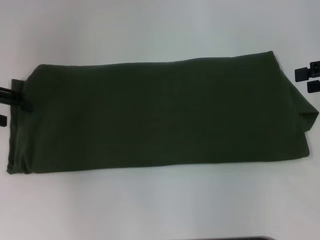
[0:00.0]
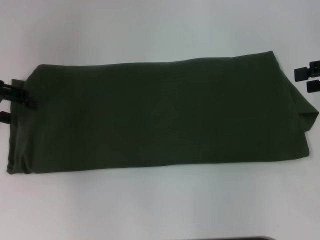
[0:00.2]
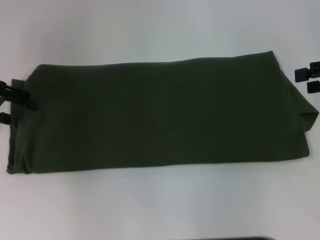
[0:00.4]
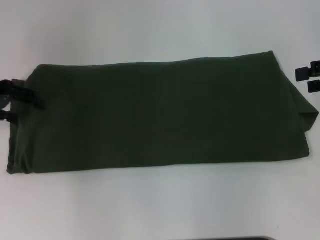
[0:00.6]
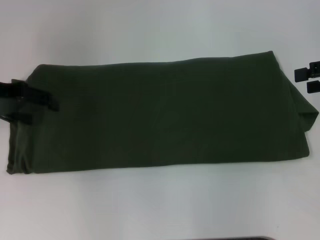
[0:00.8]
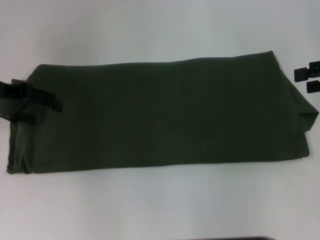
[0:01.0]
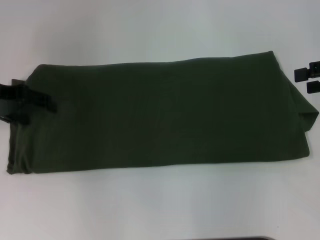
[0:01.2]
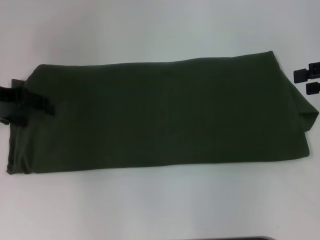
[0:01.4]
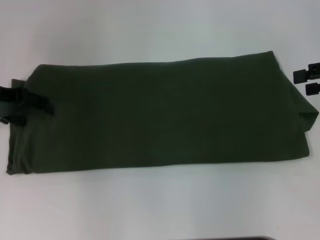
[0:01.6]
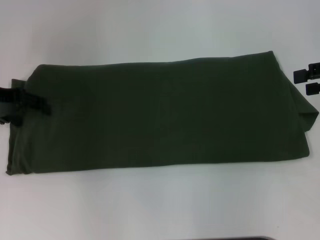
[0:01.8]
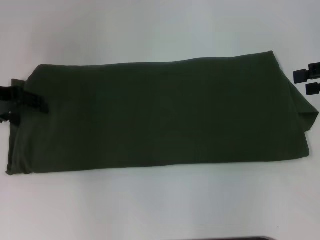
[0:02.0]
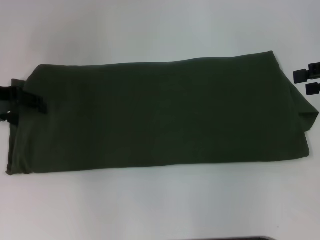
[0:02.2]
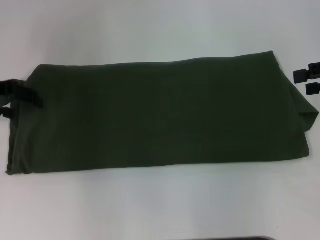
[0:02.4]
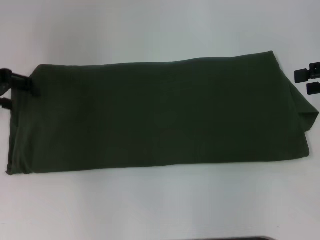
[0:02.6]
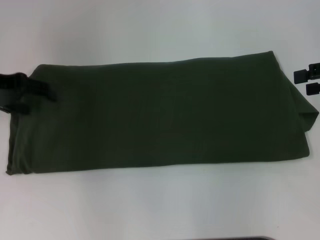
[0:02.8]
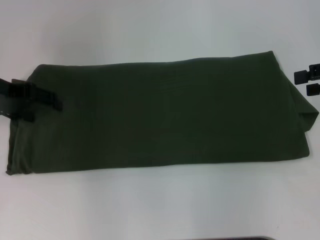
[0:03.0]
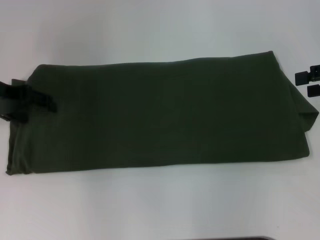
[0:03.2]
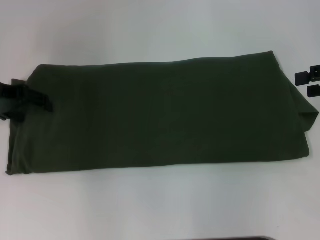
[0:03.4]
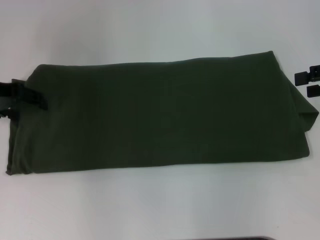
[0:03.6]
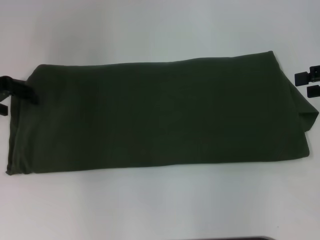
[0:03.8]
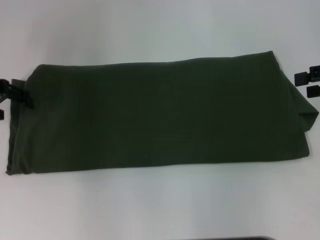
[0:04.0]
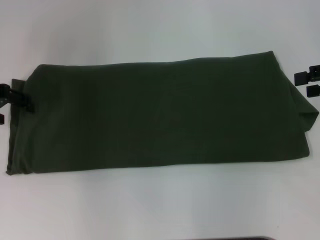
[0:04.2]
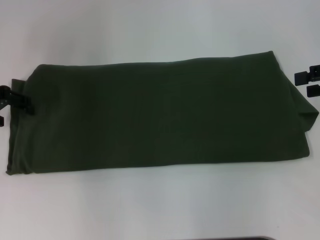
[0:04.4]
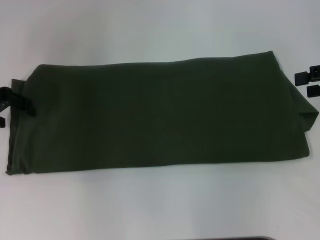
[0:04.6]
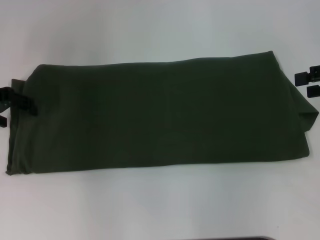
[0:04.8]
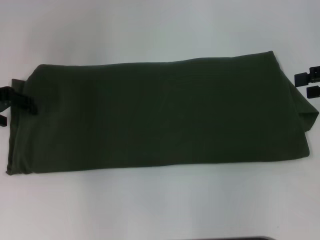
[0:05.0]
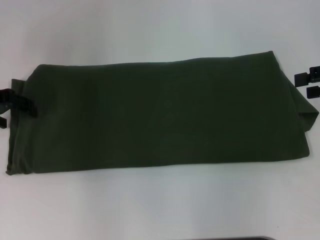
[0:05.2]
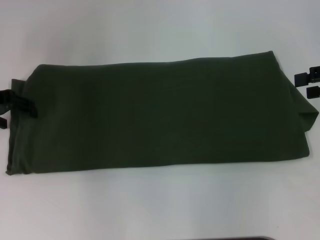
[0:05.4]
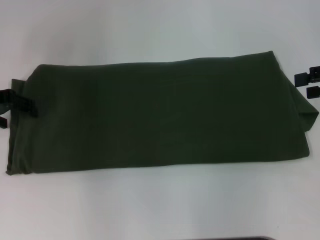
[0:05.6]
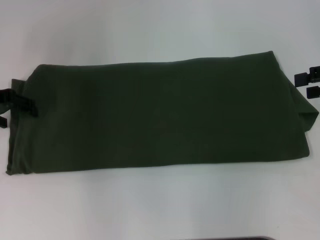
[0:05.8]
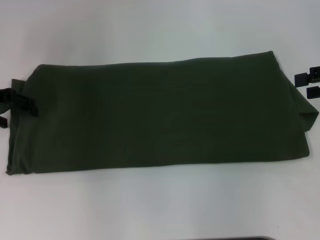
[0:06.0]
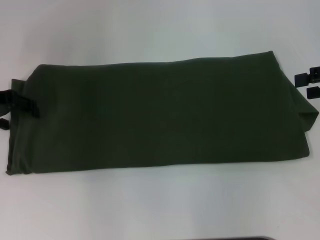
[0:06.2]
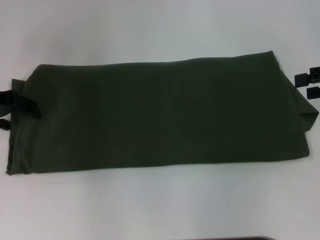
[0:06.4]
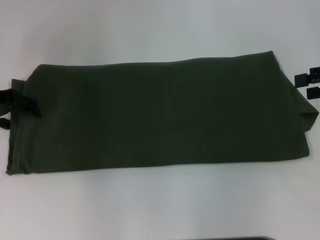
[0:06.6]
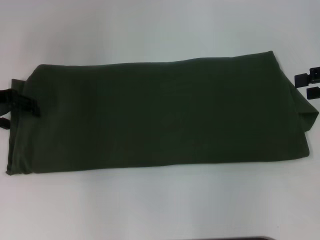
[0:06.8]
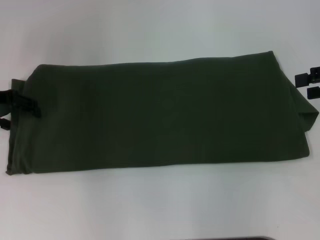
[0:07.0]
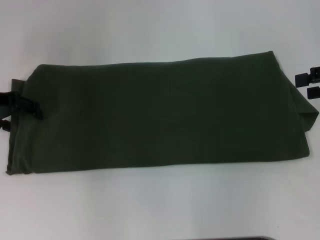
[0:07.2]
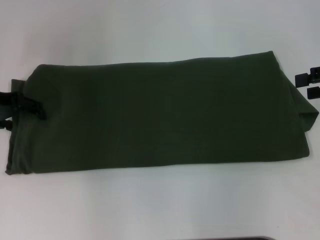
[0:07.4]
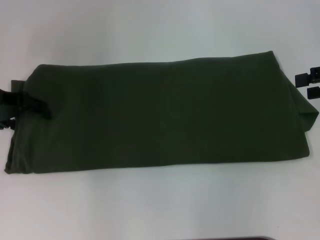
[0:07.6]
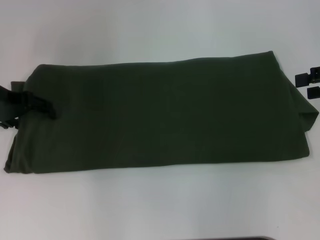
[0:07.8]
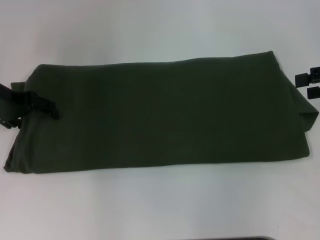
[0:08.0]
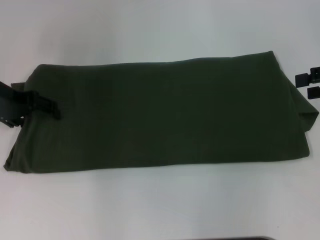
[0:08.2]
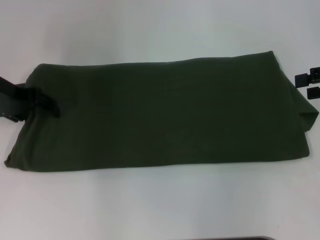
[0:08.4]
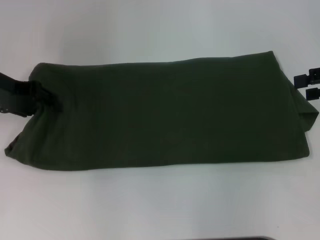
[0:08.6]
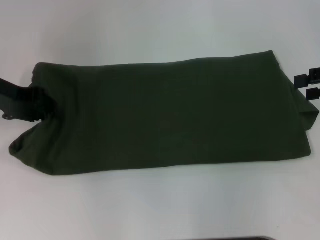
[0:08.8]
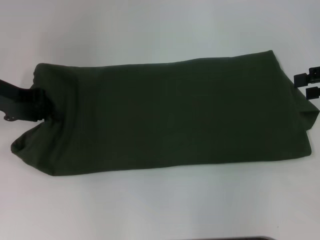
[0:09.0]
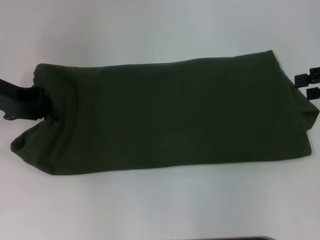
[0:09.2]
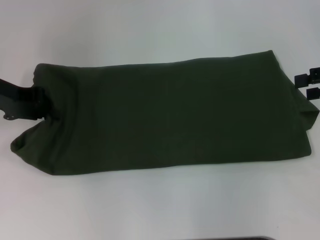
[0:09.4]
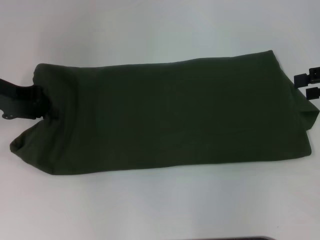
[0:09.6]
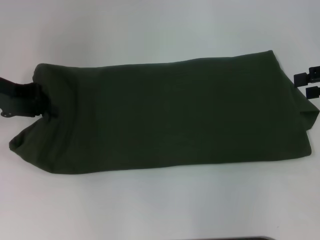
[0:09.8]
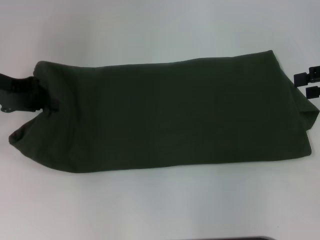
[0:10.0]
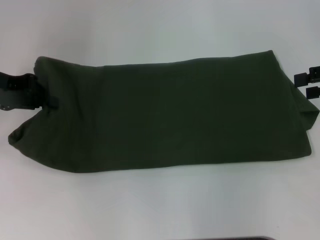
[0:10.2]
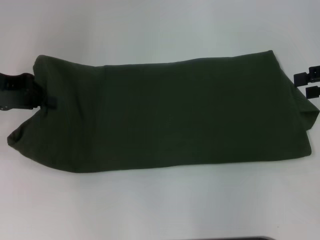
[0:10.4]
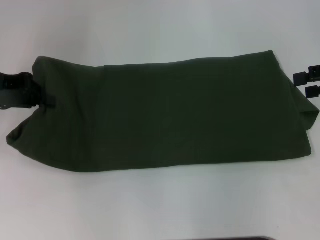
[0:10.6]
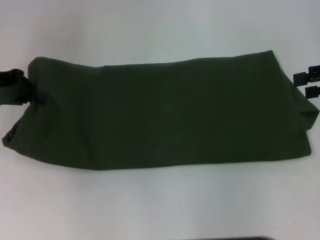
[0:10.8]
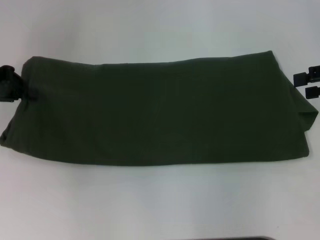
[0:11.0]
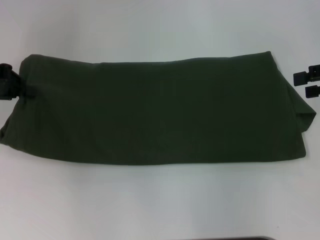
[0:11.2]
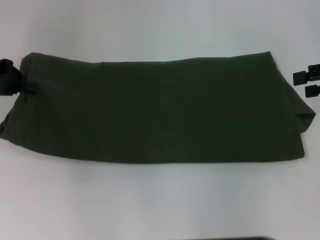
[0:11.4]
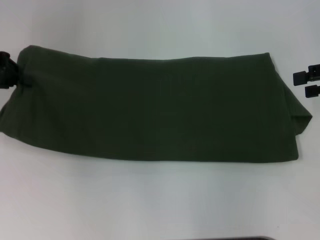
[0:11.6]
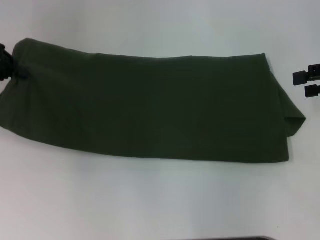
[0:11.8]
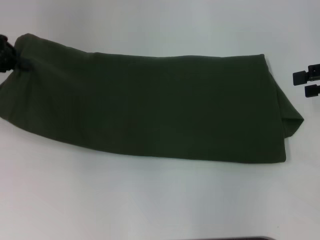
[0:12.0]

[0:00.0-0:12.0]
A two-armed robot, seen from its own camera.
0:00.0 to 0:01.6: There are only small adjustments of the grippers.
0:03.0 to 0:04.4: The grippers move only a little.
0:04.4 to 0:06.0: Both grippers stay put.
0:07.6 to 0:09.0: The left gripper closes its fingers.
0:09.0 to 0:10.4: There are only small adjustments of the grippers.
0:10.4 to 0:12.0: The left gripper changes place by some 5 cm.

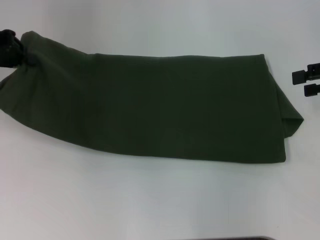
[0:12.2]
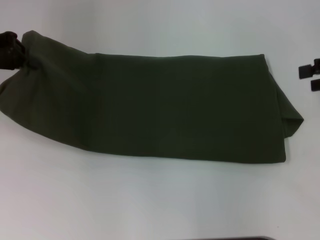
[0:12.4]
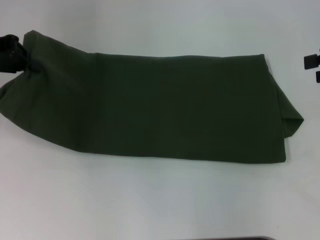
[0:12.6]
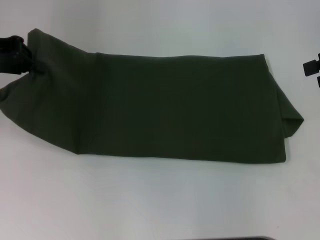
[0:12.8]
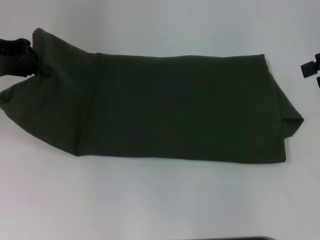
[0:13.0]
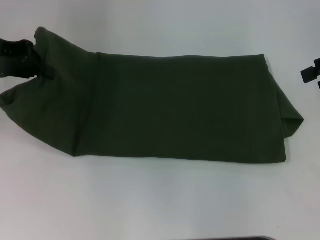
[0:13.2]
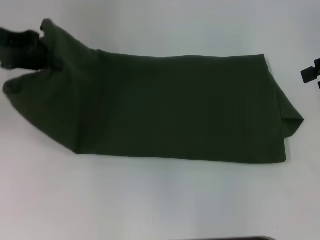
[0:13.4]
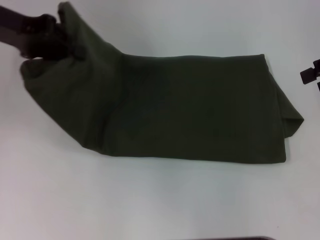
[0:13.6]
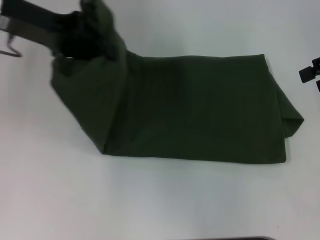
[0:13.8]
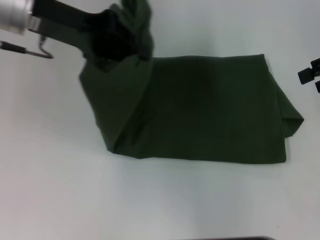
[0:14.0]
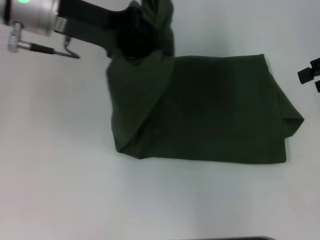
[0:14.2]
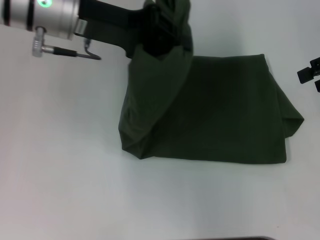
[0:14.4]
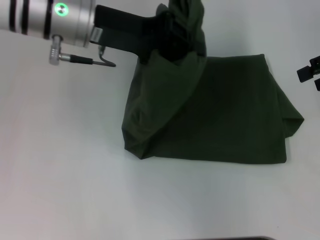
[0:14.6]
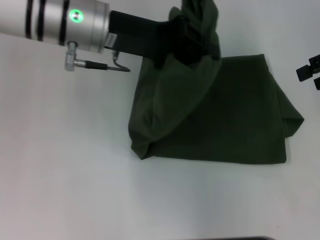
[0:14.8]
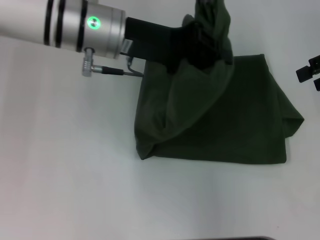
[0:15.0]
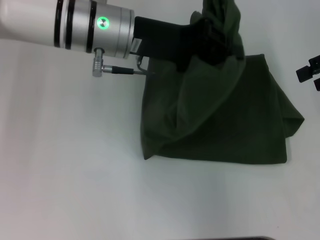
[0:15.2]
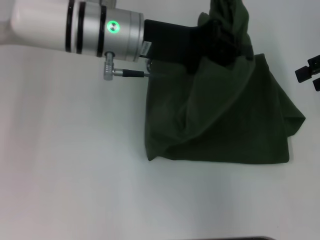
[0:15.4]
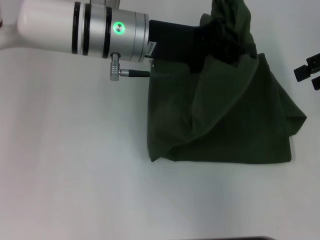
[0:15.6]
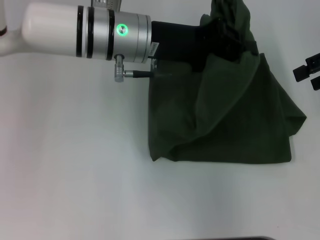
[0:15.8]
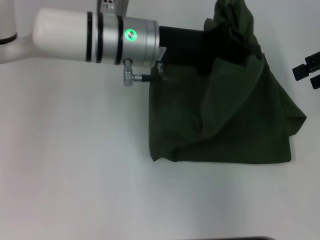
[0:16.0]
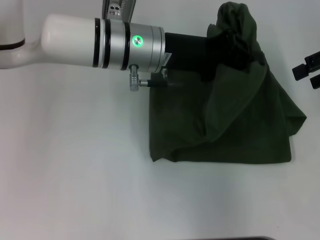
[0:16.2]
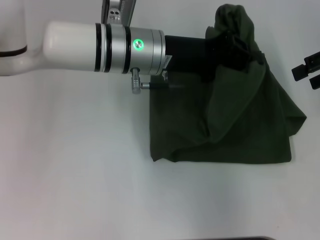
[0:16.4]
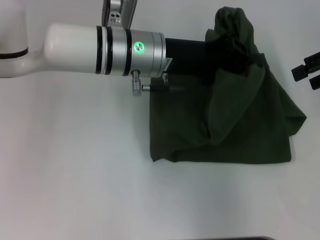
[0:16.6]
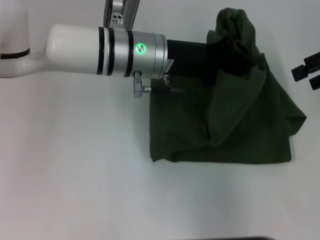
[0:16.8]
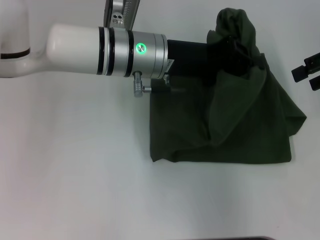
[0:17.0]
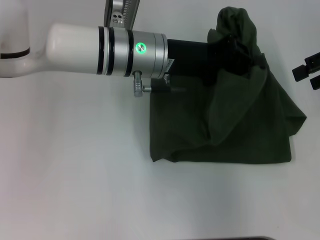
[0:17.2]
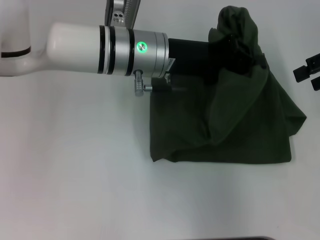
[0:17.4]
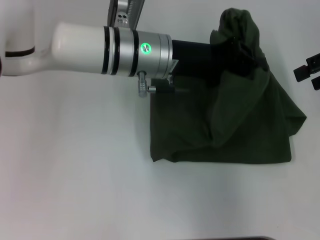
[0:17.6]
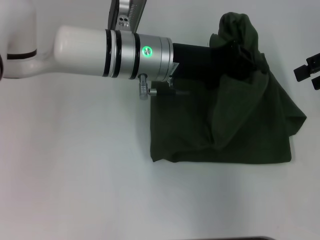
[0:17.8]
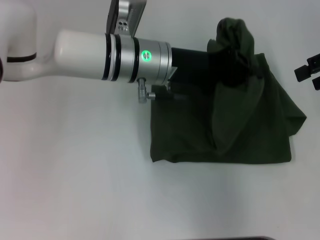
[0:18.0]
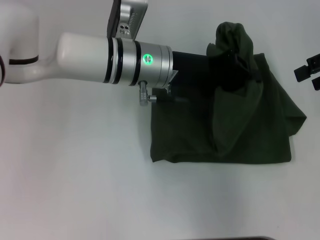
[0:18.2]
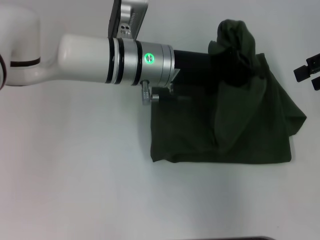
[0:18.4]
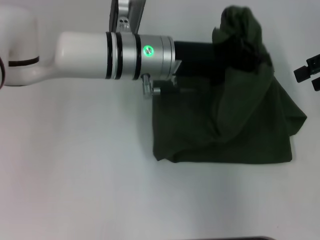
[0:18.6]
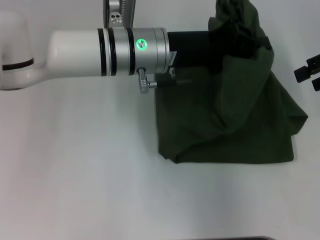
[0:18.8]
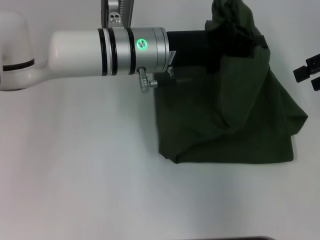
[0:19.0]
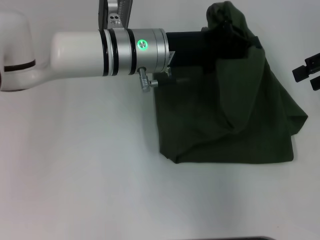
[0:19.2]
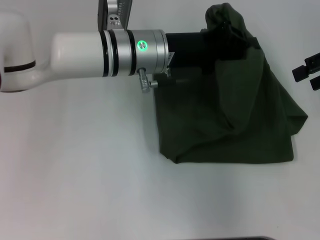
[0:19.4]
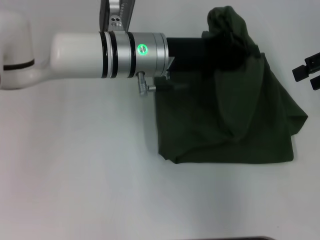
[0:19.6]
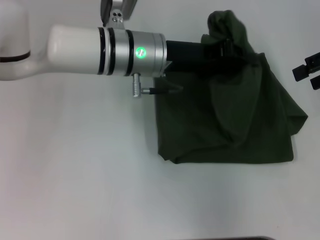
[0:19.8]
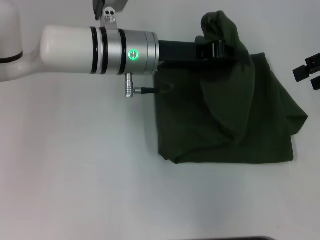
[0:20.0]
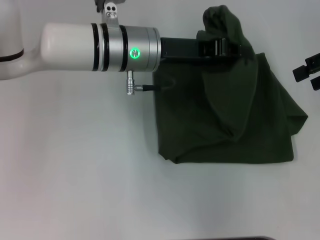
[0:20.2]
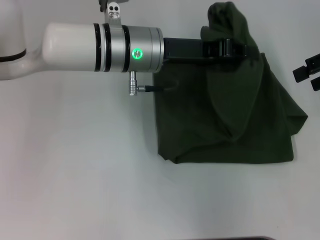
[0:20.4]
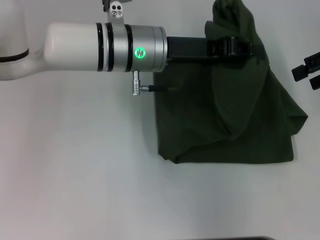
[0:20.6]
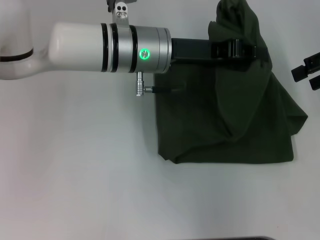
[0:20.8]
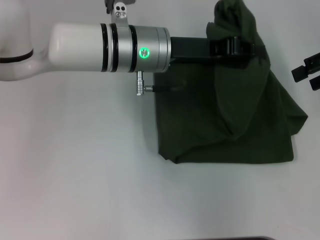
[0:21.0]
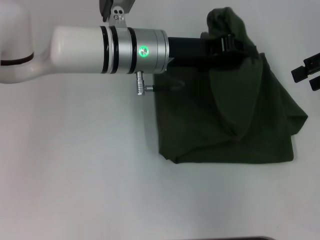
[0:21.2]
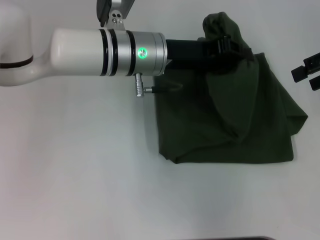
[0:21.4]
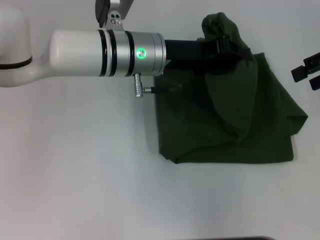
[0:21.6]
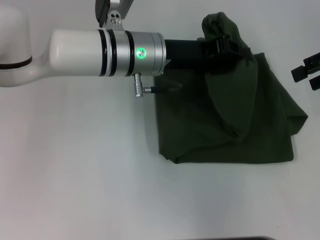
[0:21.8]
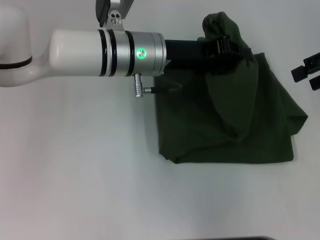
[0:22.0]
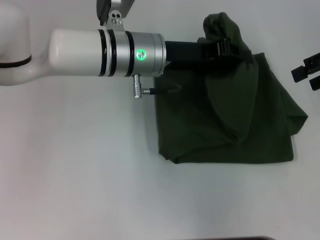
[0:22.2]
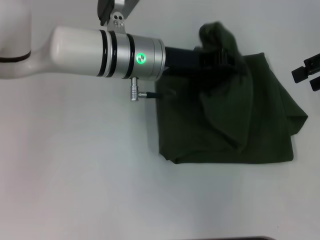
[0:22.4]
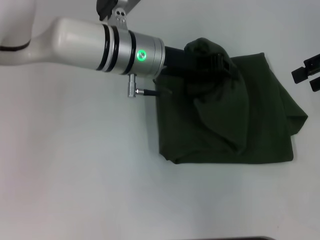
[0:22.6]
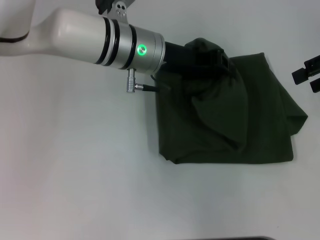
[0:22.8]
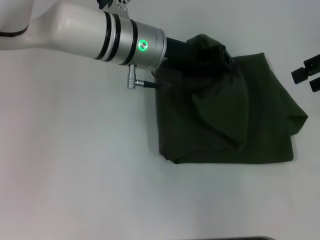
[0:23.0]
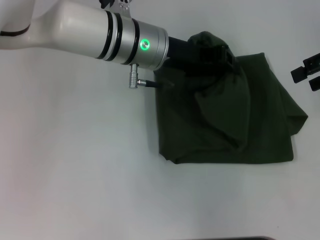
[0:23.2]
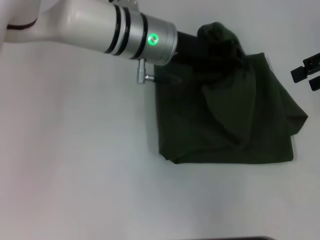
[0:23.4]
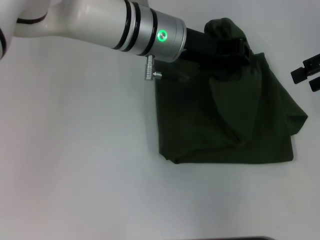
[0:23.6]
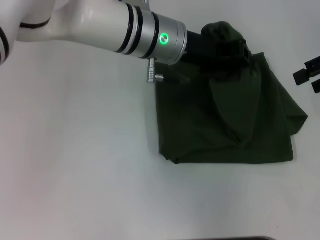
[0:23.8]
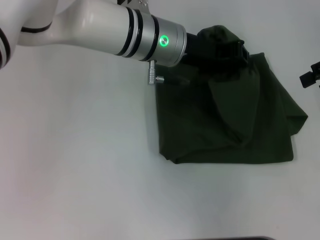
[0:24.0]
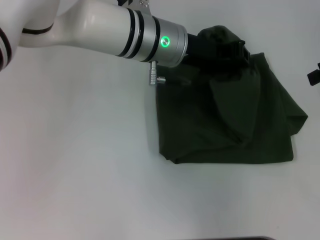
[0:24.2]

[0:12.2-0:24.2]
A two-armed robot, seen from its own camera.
0:12.2 to 0:13.8: The left gripper shifts some 10 cm to the right; the right gripper changes place by about 5 cm.
0:13.8 to 0:15.2: The left gripper is displaced to the right by approximately 15 cm.
0:15.2 to 0:16.6: The left gripper moves about 5 cm.
0:16.6 to 0:19.8: The grippers move only a little.
0:19.8 to 0:24.2: The grippers stay close to where they were, moving slightly.
